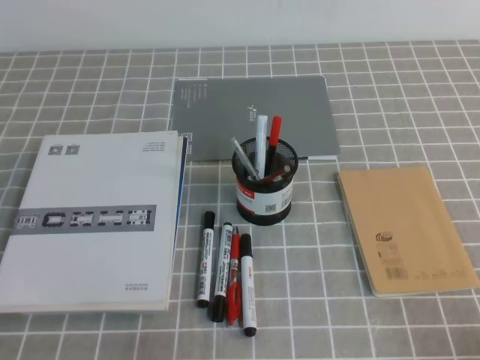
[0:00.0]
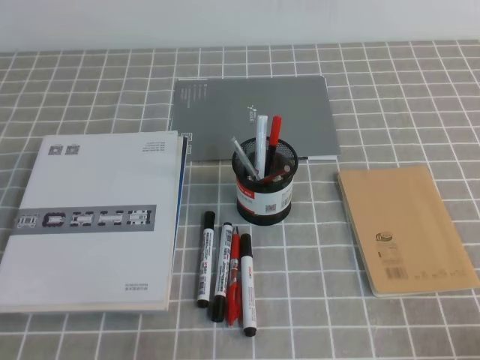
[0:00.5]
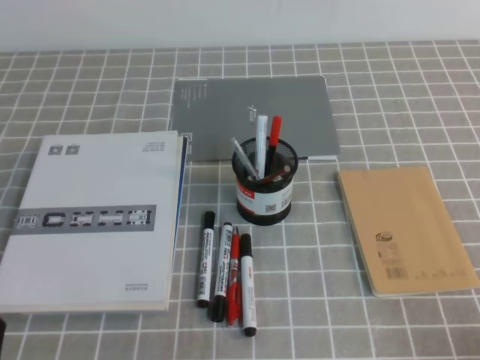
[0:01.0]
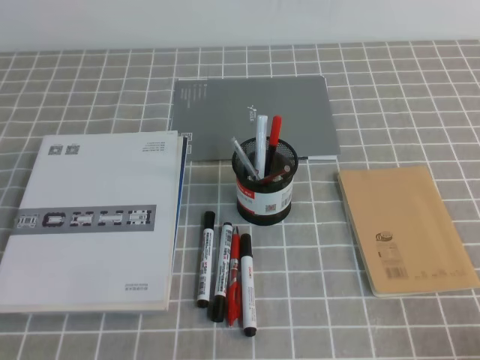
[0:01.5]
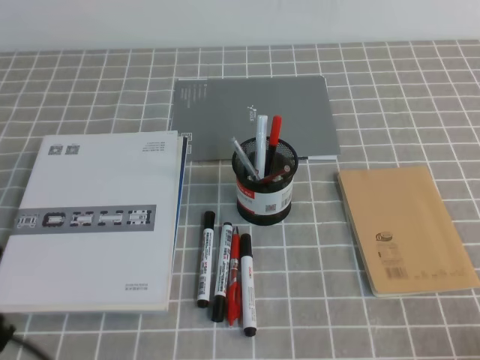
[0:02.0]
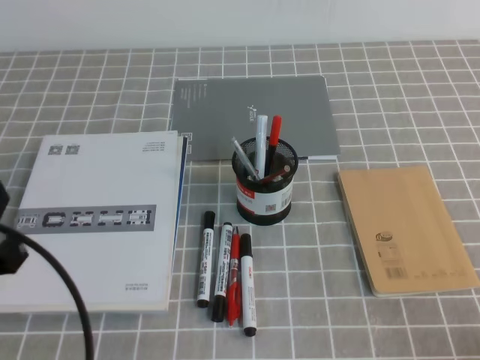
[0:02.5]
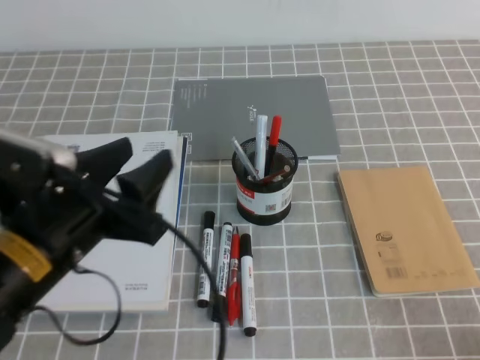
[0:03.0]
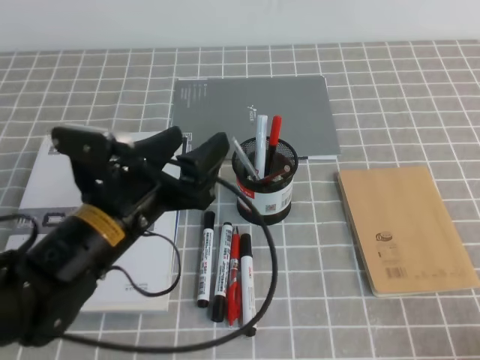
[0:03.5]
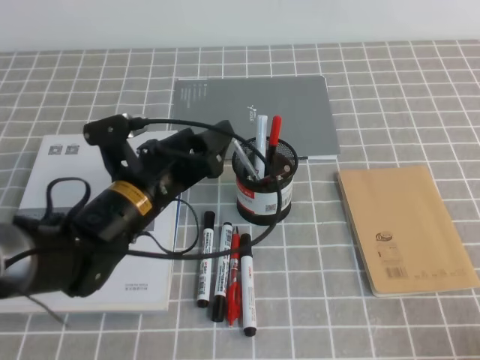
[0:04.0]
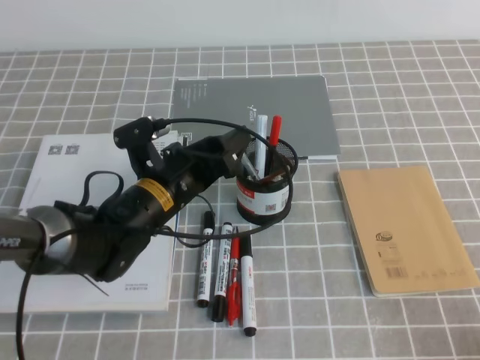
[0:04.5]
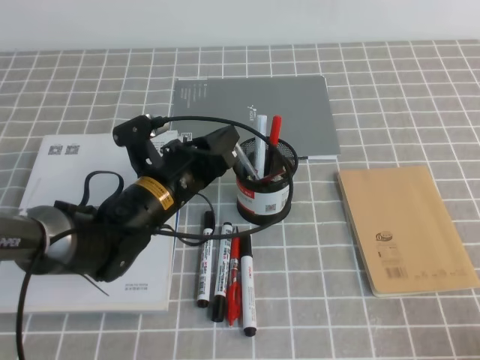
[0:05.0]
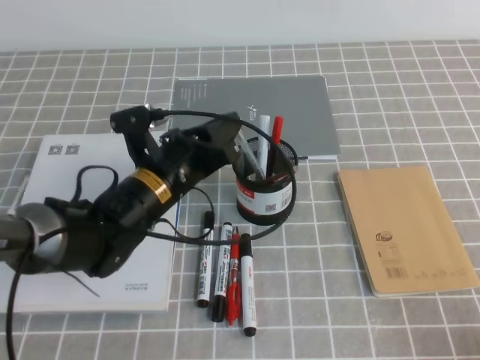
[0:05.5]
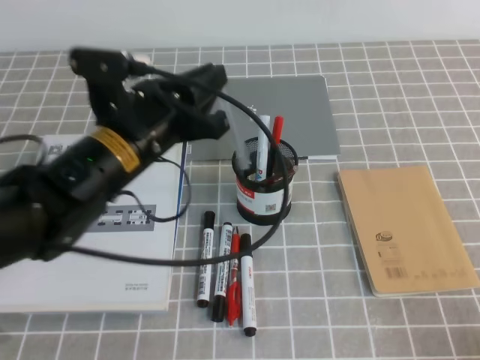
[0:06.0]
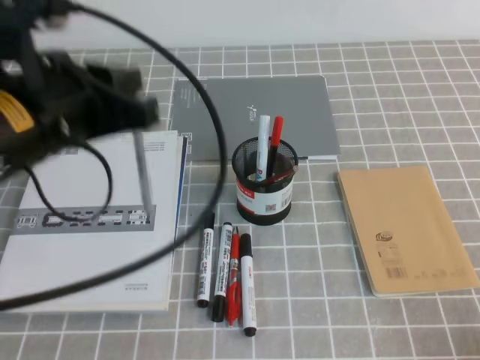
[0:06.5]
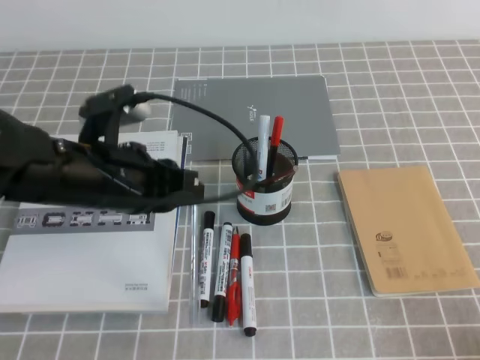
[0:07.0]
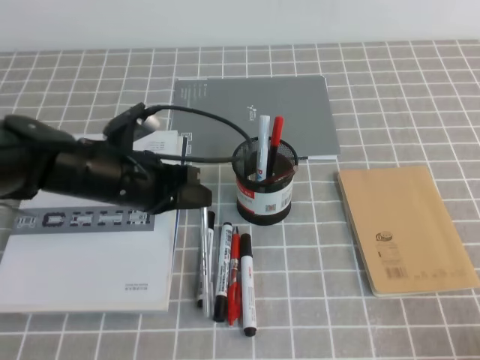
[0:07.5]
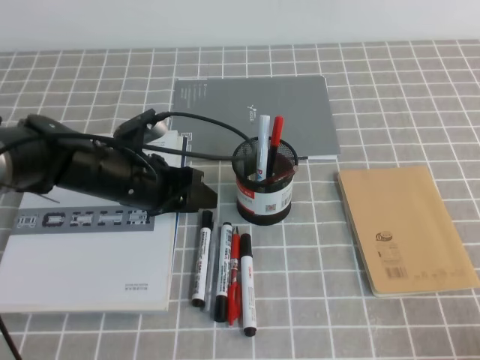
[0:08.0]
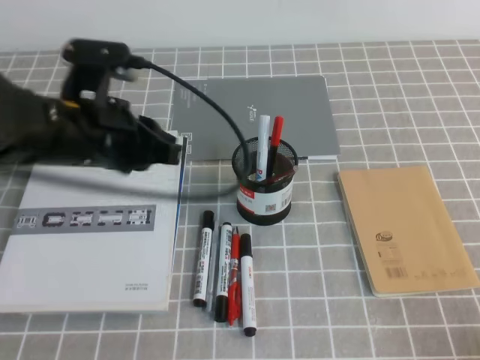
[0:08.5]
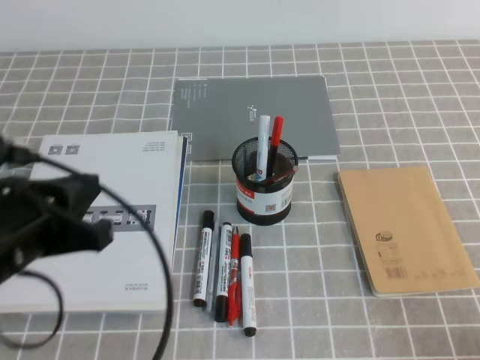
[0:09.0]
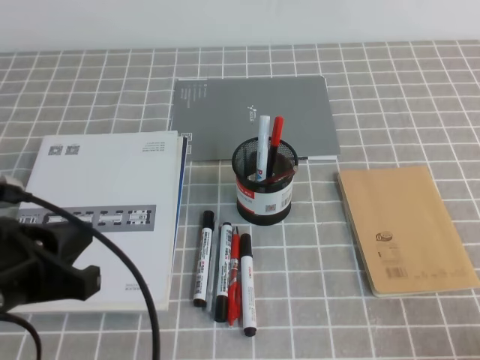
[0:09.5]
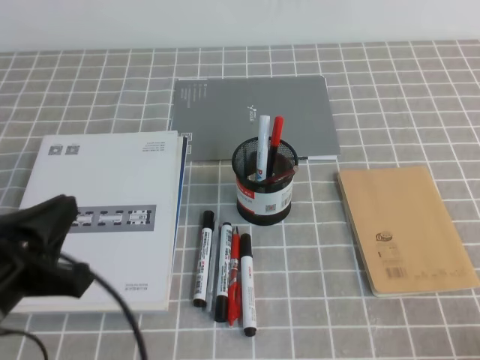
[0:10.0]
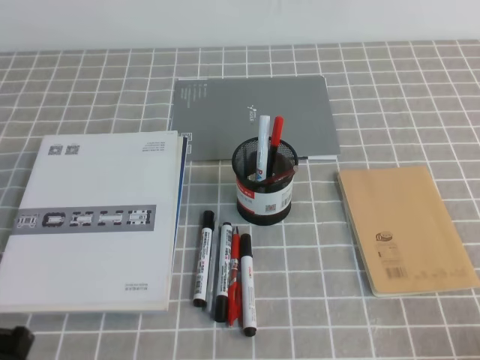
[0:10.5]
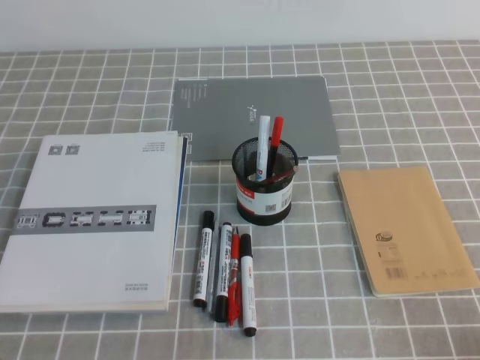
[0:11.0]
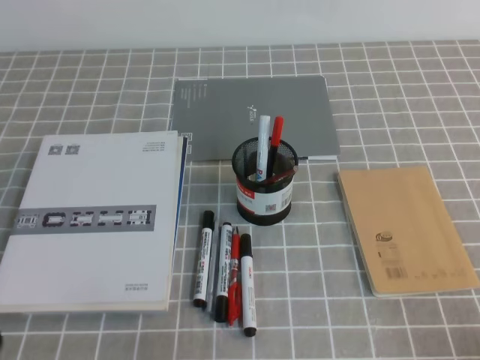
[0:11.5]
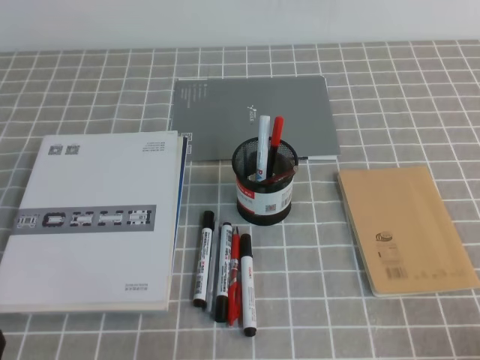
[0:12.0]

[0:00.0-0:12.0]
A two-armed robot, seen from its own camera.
Step, 0:00.0 to 0:12.0: Pick up the pen from the pen holder.
0:02.0 to 0:04.0: The left gripper goes about 25 cm forward and to the right, and opens up.
0:04.0 to 0:06.0: The left gripper changes place by about 5 cm, and closes.
0:06.0 to 0:08.0: The left gripper is displaced downward by roughly 5 cm.
0:08.0 to 0:10.0: The left gripper is displaced backward, upward and to the left by approximately 25 cm.
0:10.0 to 0:12.0: The left gripper moves downward, backward and to the left, roughly 15 cm.
